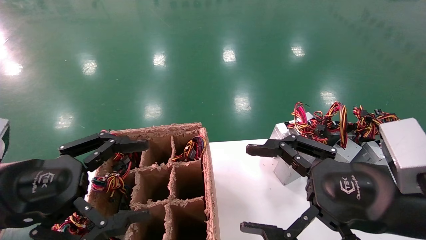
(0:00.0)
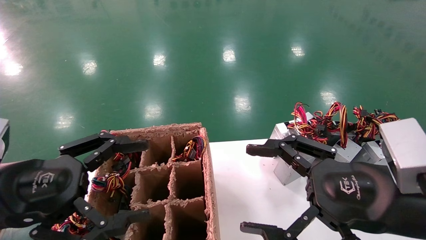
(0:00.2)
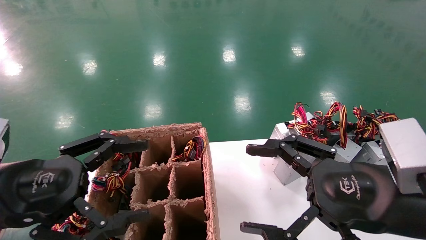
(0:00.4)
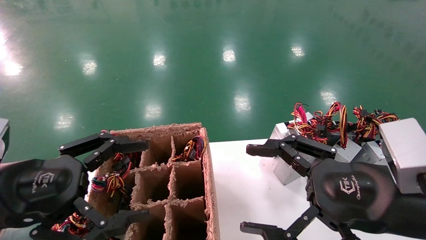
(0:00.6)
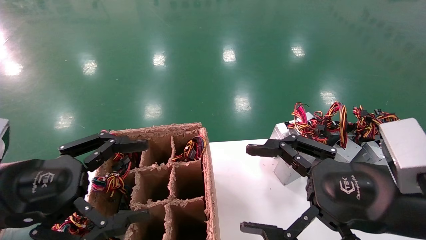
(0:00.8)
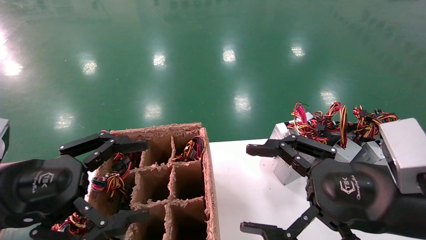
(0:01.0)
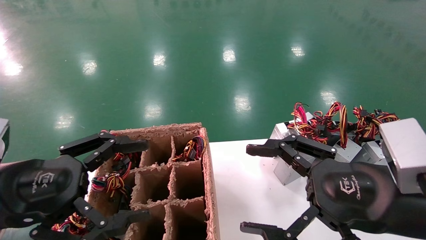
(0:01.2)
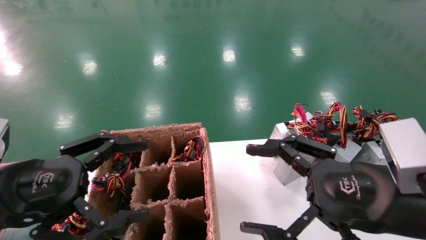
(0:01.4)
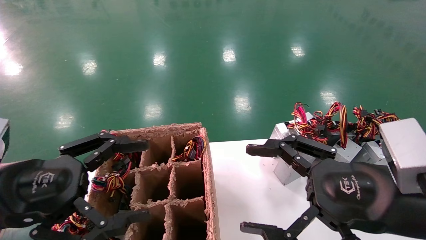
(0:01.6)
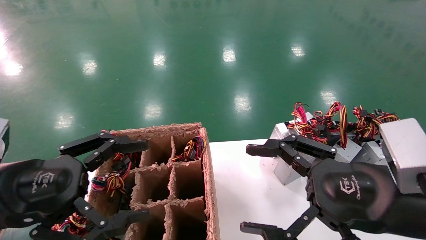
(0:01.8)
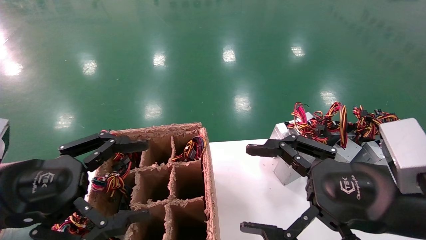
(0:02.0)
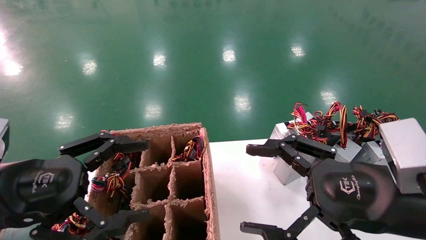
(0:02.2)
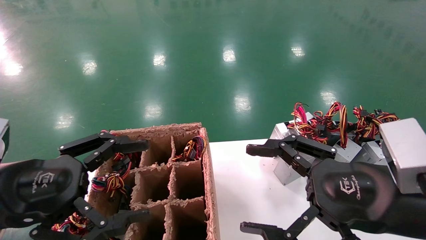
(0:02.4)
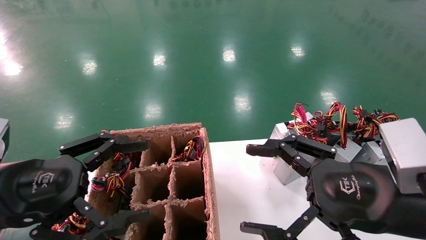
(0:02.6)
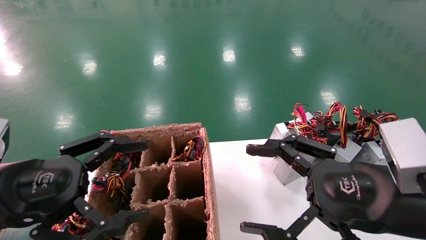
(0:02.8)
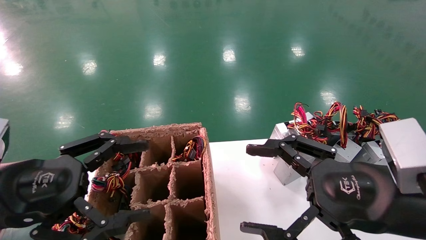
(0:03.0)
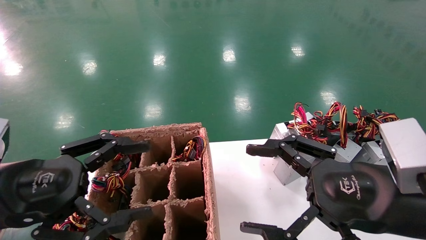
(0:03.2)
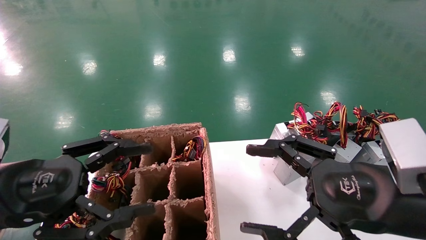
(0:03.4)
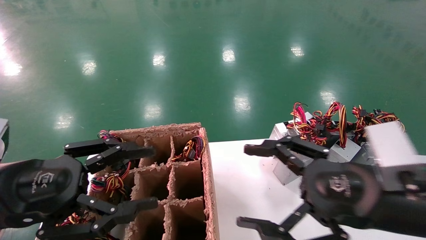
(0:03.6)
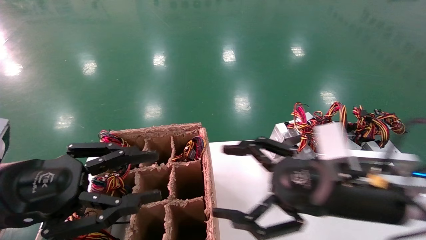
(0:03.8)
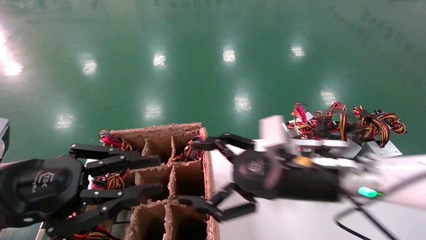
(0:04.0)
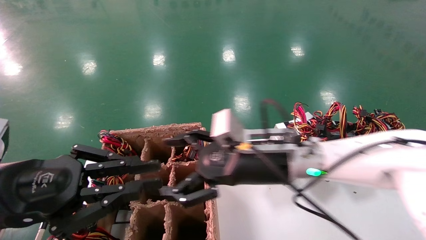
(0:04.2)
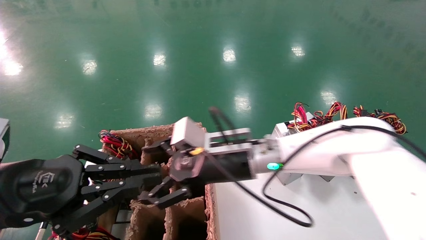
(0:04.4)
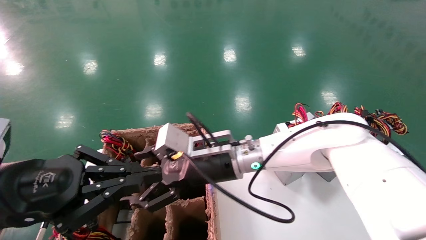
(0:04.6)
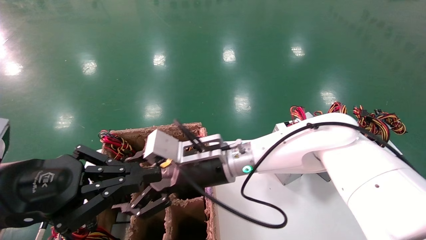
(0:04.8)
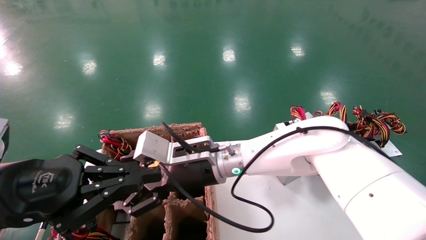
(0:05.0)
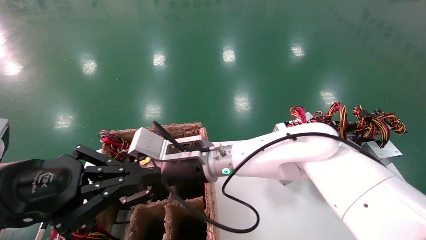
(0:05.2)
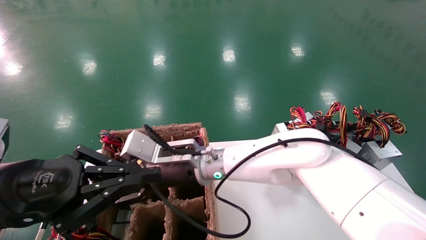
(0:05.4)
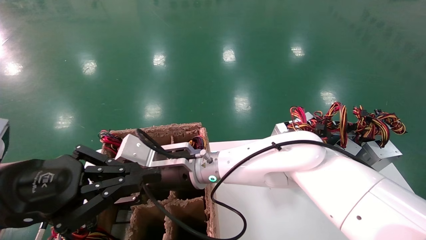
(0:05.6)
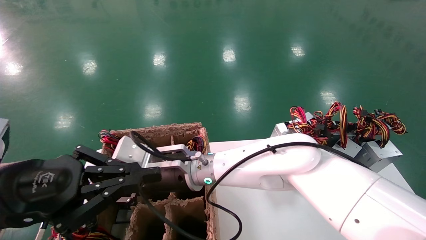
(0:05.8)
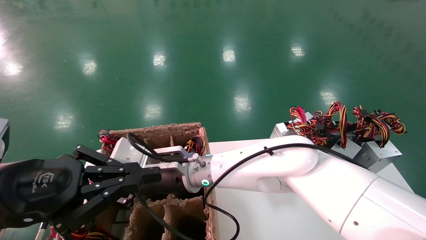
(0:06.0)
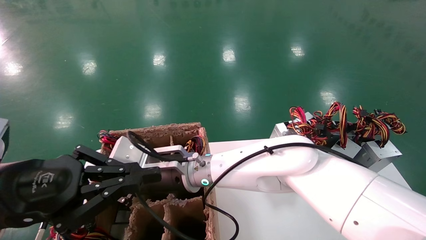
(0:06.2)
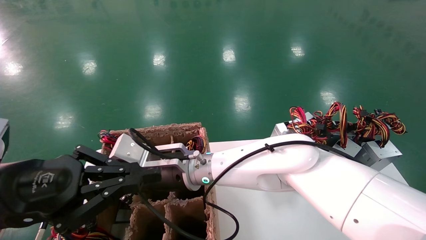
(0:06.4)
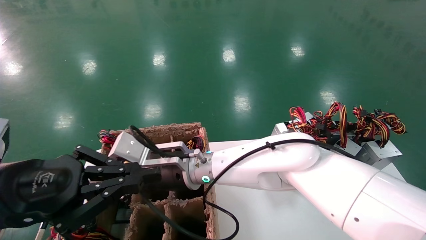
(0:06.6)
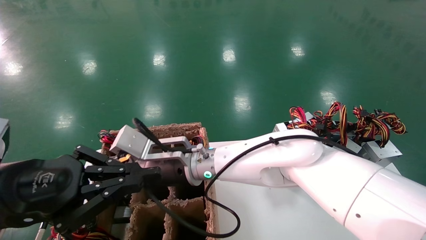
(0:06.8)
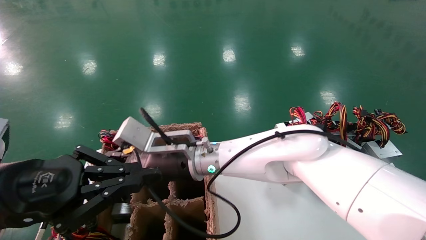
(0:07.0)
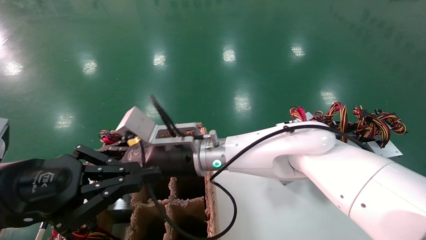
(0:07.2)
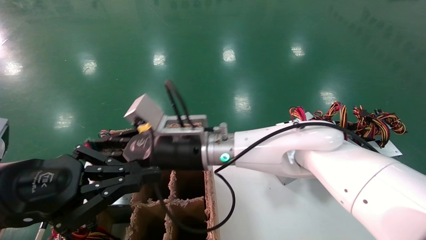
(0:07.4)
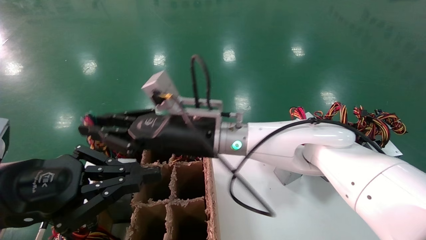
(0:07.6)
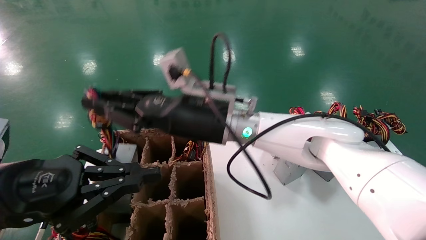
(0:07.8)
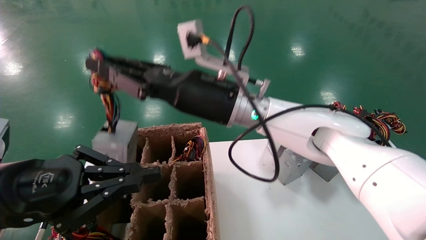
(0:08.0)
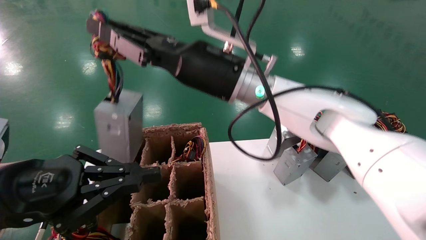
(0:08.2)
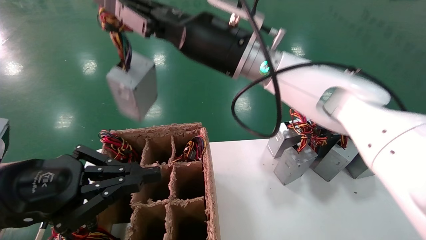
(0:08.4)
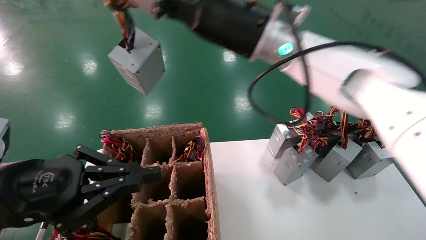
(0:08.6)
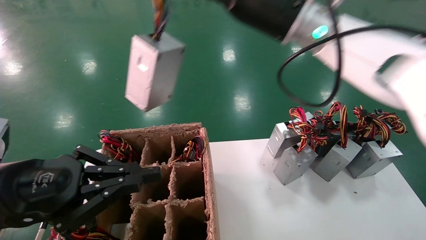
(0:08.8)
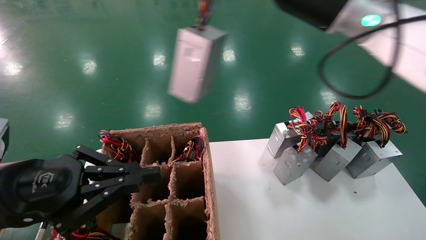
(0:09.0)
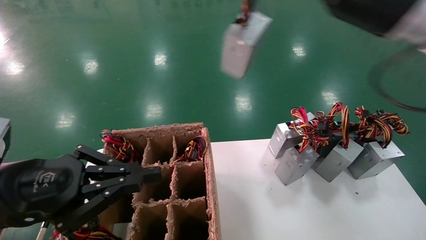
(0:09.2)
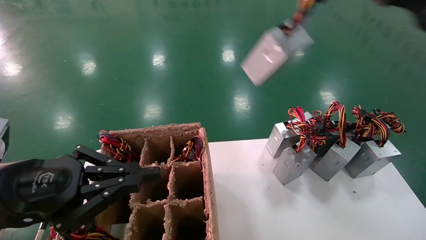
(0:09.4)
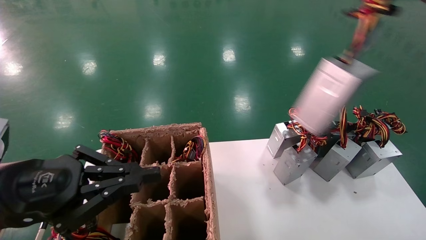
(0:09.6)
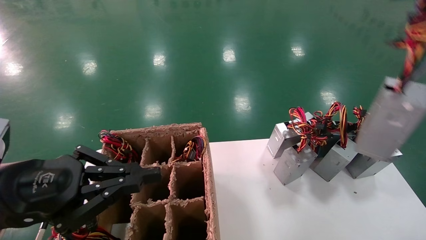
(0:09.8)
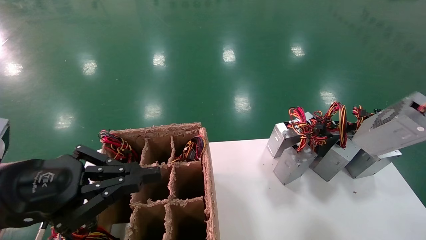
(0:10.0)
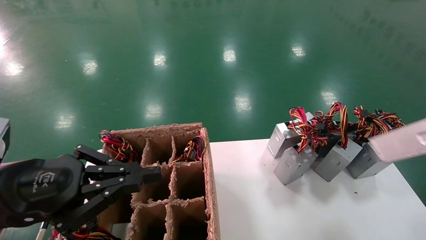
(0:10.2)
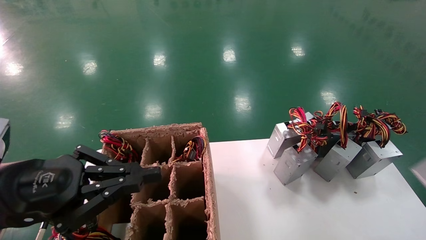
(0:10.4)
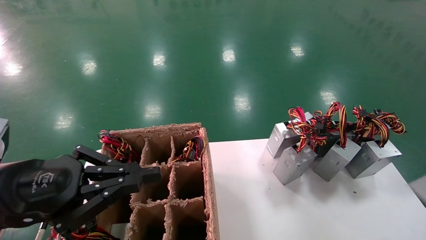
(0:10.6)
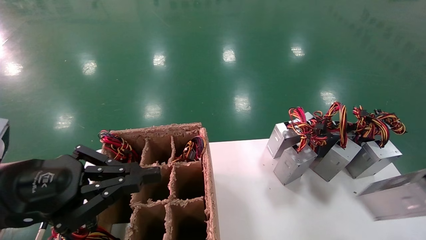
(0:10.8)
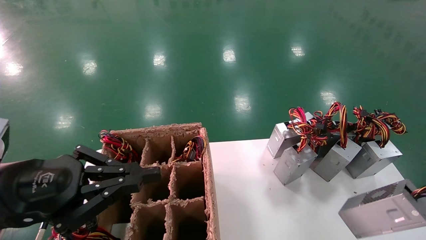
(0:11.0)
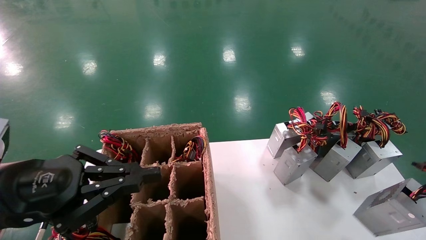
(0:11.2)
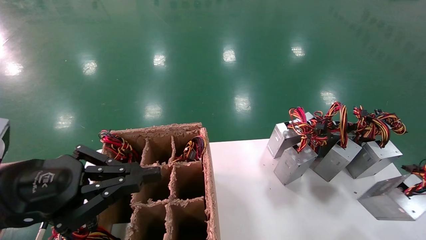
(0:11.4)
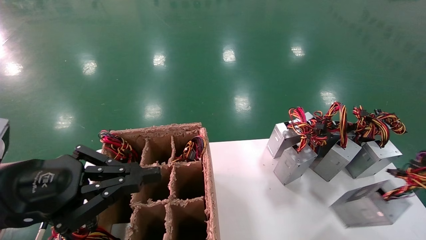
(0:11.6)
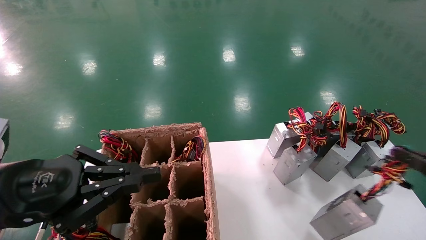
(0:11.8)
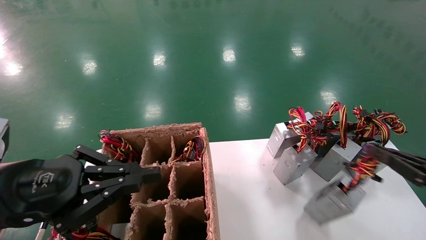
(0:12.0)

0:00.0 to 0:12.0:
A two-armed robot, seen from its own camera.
Step, 0:04.0 to 0:06.2: Grab the main unit power supply from the containment box.
0:00.0 to 0:03.0: Both grippers stay put.
0:03.0 to 0:04.4: The right gripper shifts roughly 25 cm to the left and forward. The left gripper closes.
0:04.4 to 0:06.0: The right gripper goes about 10 cm to the left, and closes up.
0:06.0 to 0:07.6: The right gripper heads upward, covering roughly 10 cm.
0:07.6 to 0:09.0: The right gripper heads to the right and upward, covering some 25 cm.
0:09.0 to 0:10.4: The right gripper travels to the right, backward and downward by about 40 cm.
0:10.4 to 0:12.0: The right gripper is displaced forward, downward and to the left by roughly 15 cm.

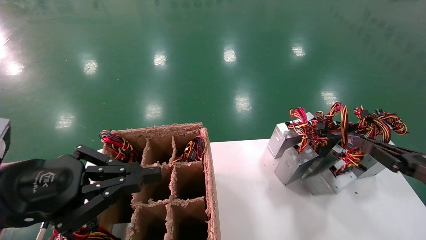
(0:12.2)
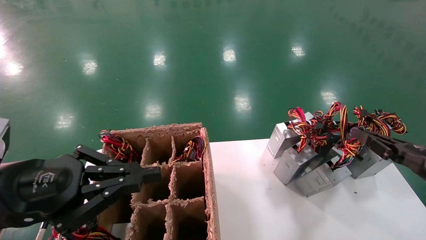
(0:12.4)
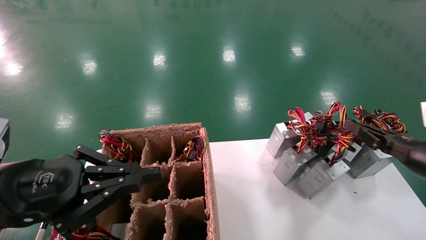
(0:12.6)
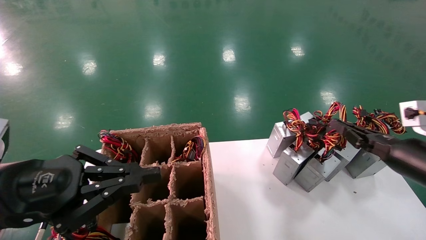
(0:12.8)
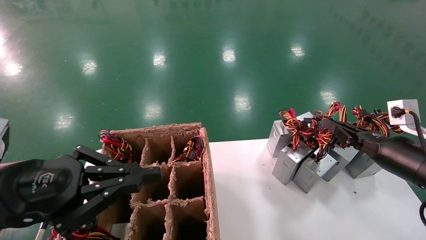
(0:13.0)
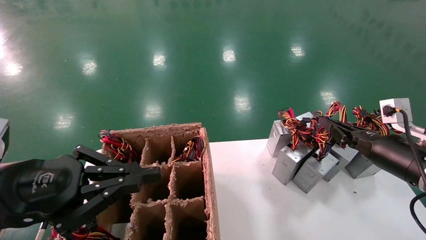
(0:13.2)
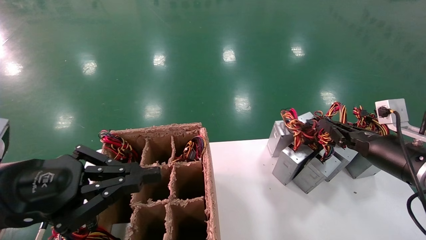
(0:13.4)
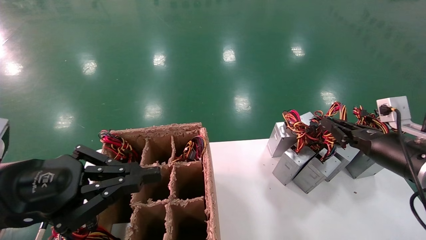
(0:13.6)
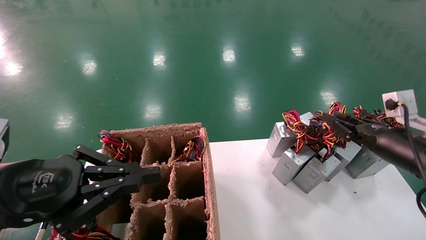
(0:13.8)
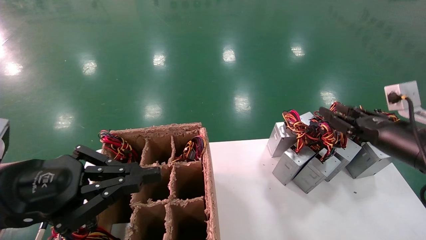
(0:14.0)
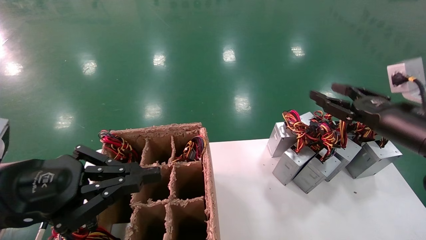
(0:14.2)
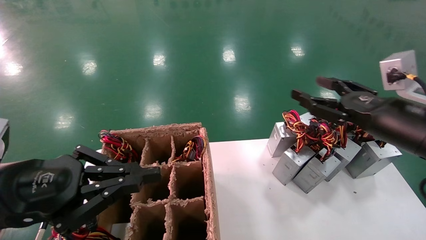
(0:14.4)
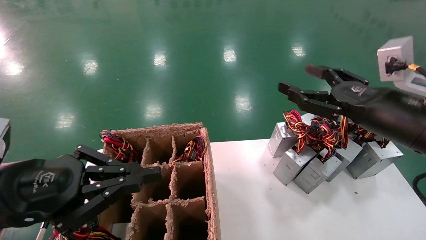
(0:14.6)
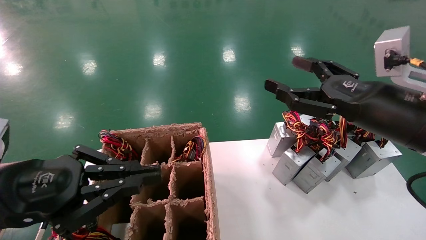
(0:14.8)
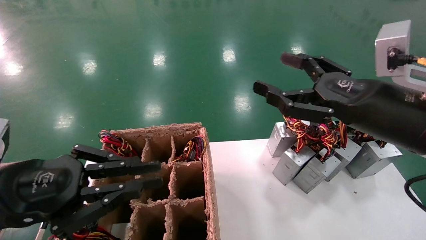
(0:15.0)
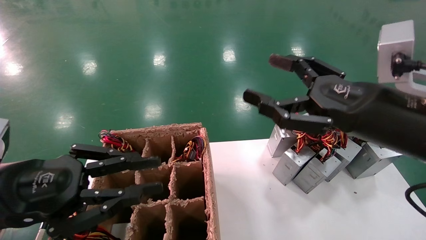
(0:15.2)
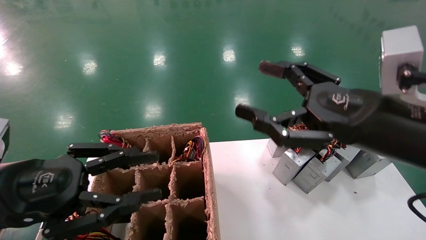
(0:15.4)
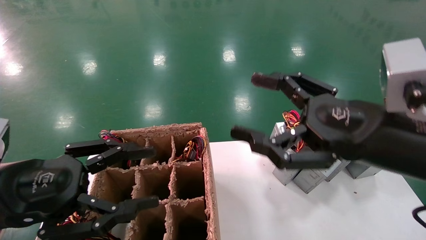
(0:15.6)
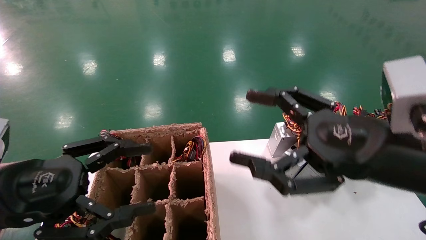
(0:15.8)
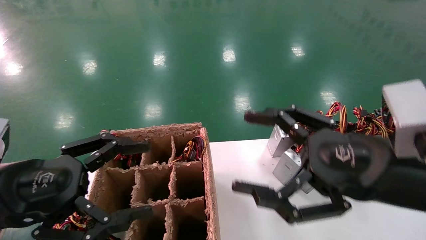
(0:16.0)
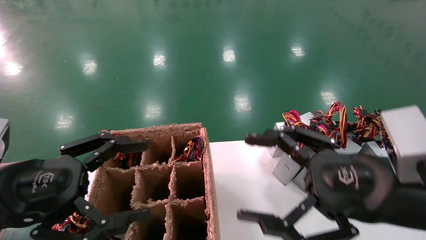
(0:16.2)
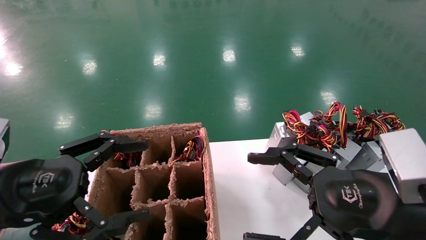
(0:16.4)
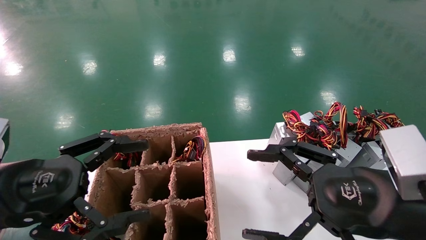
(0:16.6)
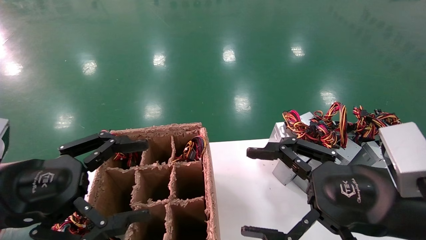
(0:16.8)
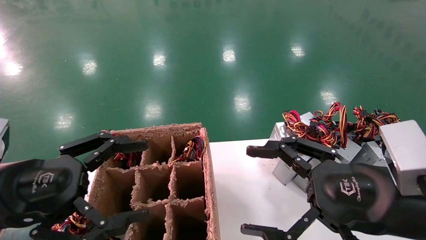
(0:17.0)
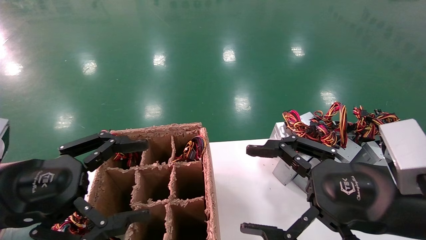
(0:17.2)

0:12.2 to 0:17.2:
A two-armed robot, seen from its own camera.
Step, 0:12.2 to 0:14.2: Place the main unit power supply in the designated area.
0:12.2 to 0:13.8: The right gripper shifts approximately 10 cm forward and to the left.
0:13.8 to 0:15.6: The right gripper heads to the left, backward and upward, covering approximately 20 cm, and opens. Meanwhile the left gripper opens.
0:15.6 to 0:17.2: The left gripper opens. The right gripper is displaced downward by approximately 5 cm.
